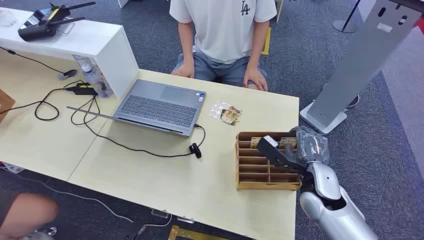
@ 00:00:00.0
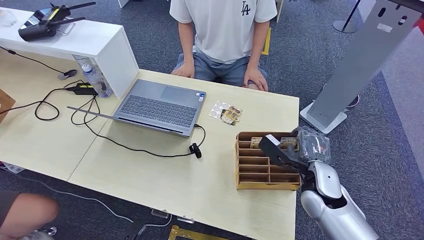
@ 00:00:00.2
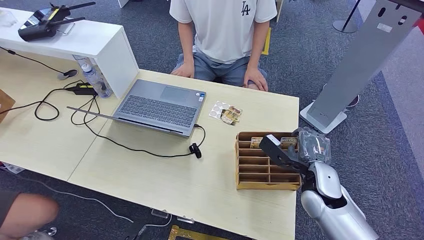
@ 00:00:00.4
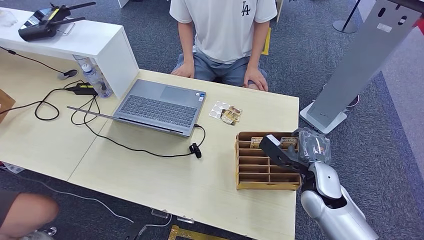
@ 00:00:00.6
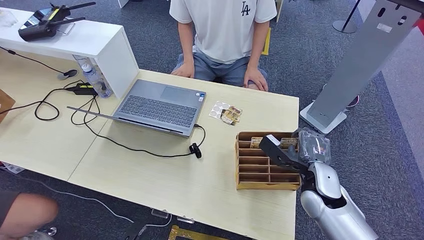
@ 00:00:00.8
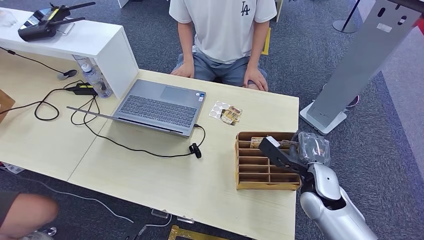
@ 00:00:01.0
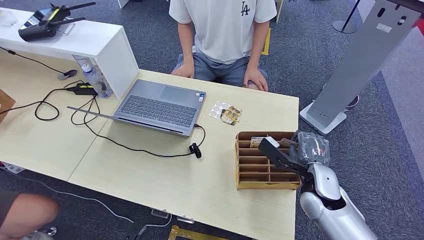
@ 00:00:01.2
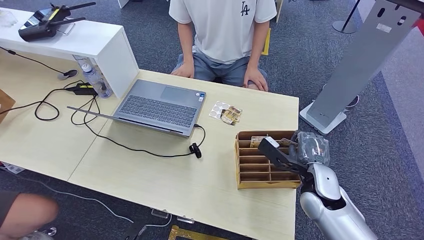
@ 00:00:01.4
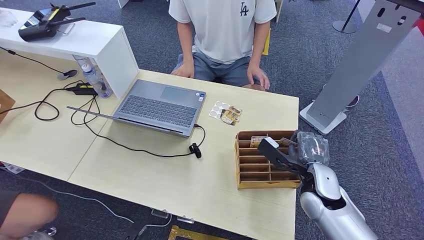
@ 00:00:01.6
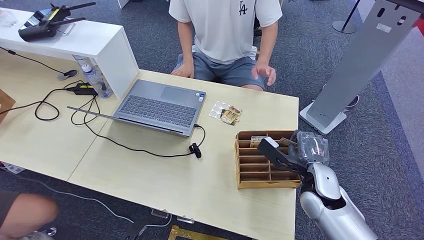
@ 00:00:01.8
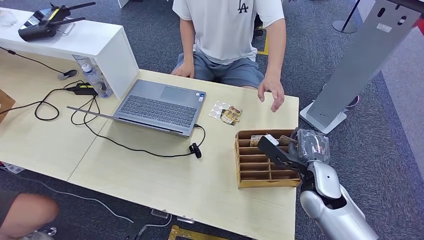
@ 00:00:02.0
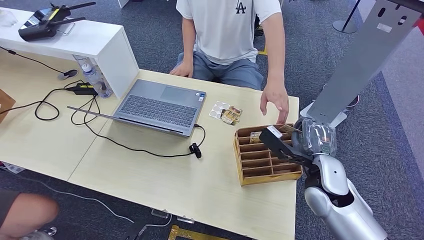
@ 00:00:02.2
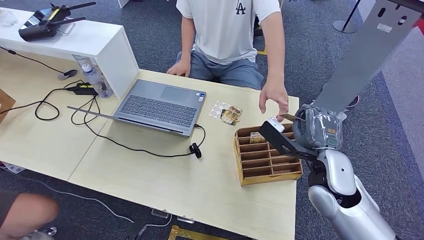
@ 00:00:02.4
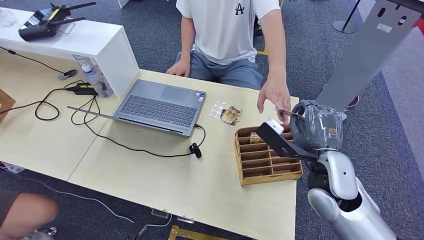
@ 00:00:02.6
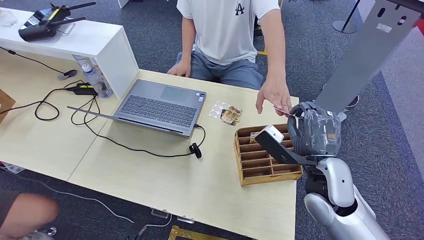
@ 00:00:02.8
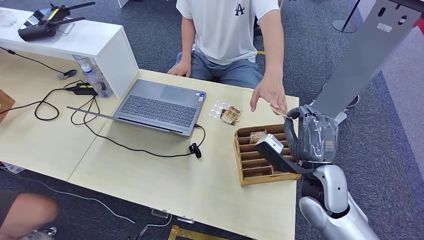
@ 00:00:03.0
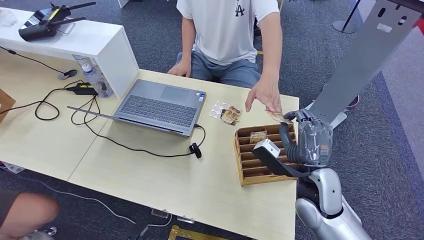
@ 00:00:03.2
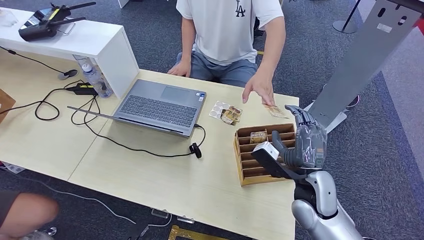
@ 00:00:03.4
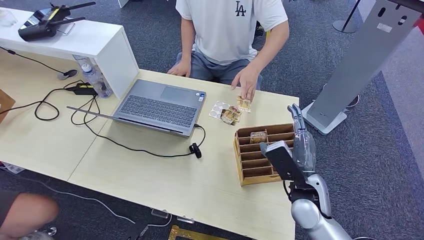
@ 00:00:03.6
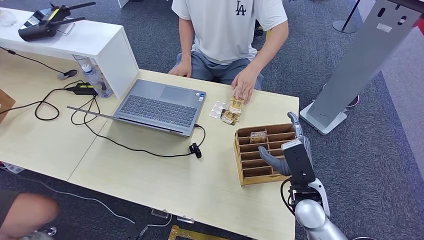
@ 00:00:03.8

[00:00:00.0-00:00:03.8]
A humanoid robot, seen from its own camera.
Step, 00:00:00.0 to 00:00:02.0: Pick up the room card from the card holder.
Step, 00:00:02.4 to 00:00:03.8: Hand the room card to the target.
00:00:01.2 to 00:00:02.6: The right hand goes approximately 10 cm upward.
00:00:02.6 to 00:00:03.8: The right hand moves downward, about 10 cm.
